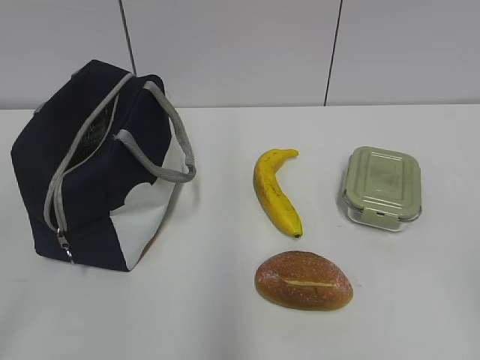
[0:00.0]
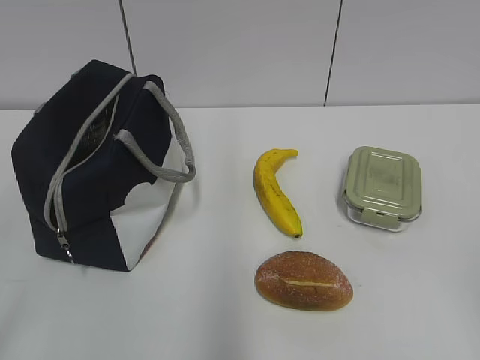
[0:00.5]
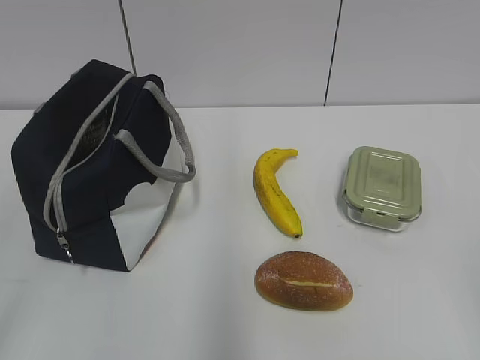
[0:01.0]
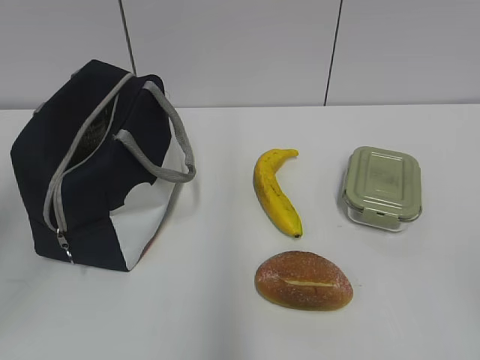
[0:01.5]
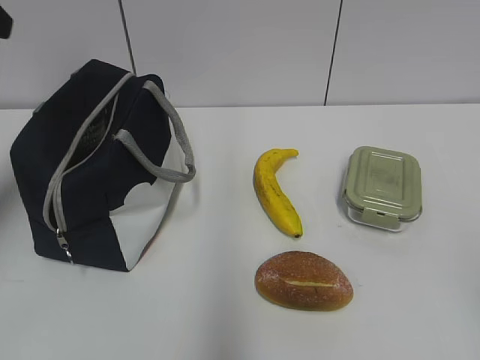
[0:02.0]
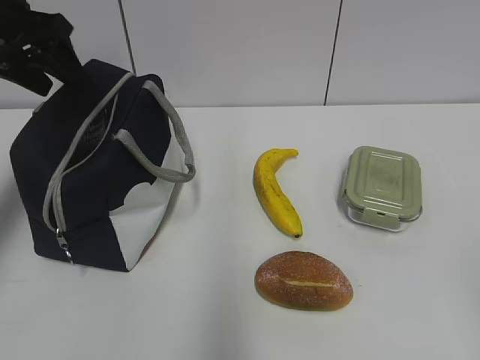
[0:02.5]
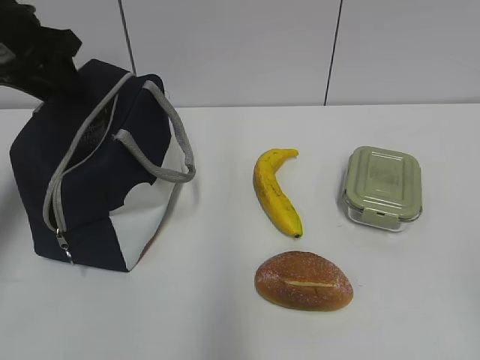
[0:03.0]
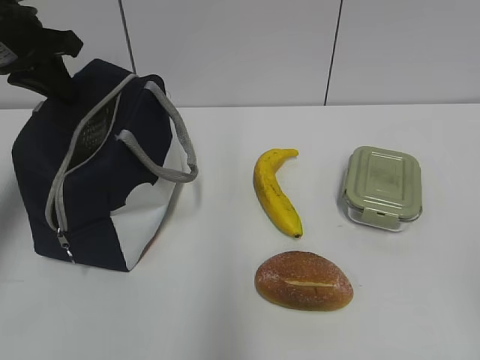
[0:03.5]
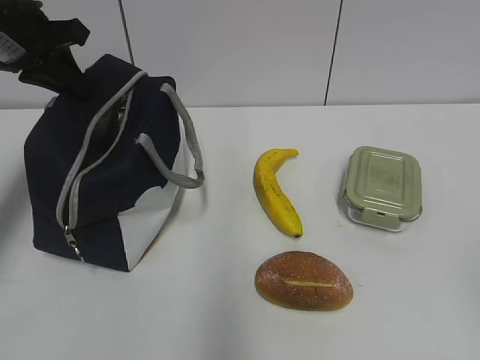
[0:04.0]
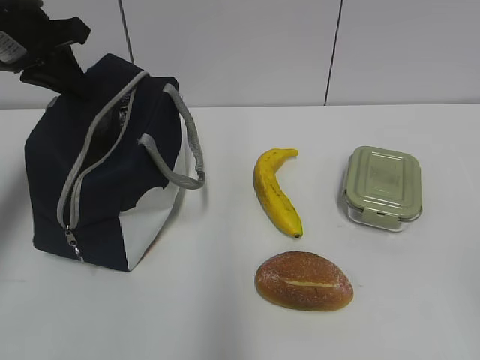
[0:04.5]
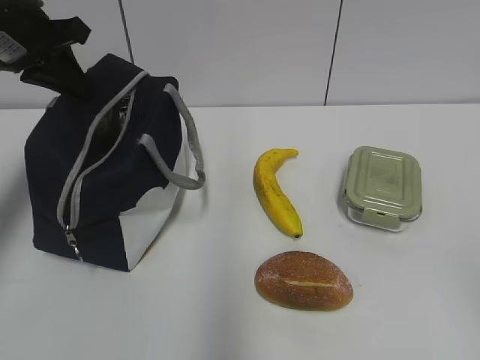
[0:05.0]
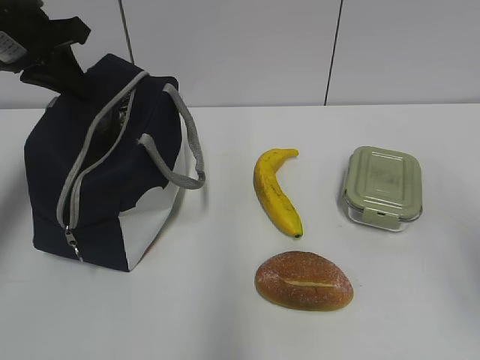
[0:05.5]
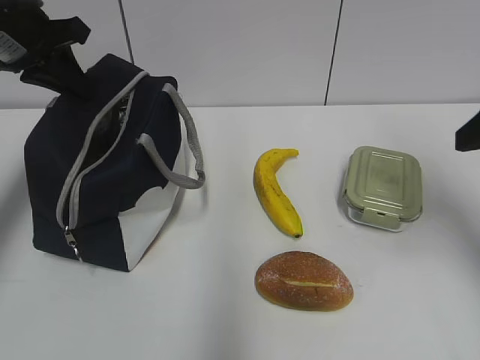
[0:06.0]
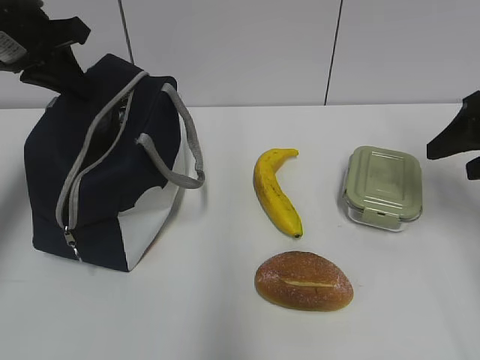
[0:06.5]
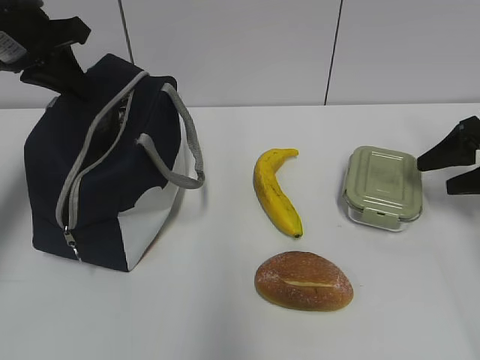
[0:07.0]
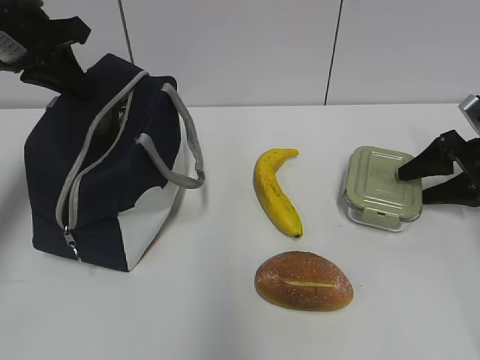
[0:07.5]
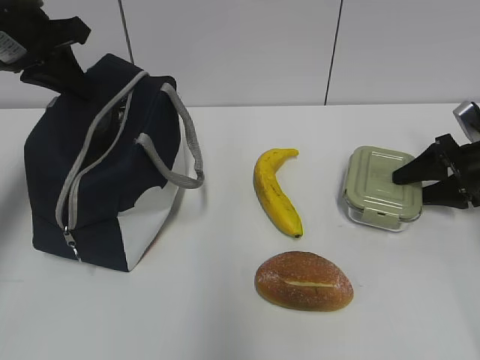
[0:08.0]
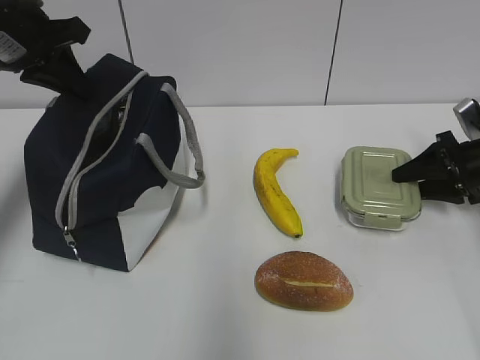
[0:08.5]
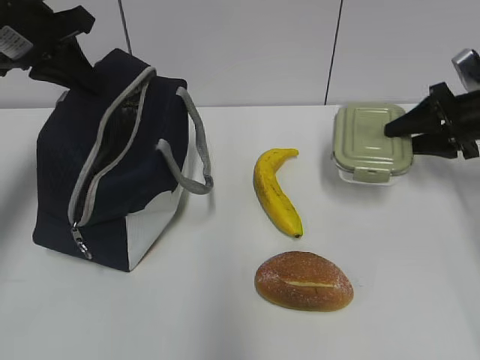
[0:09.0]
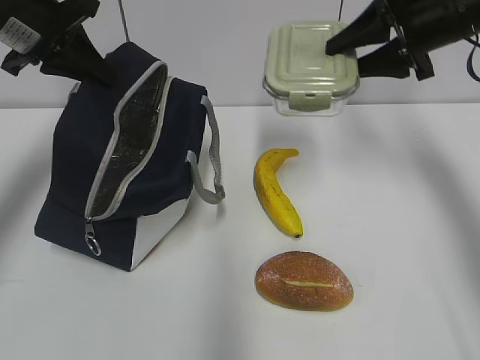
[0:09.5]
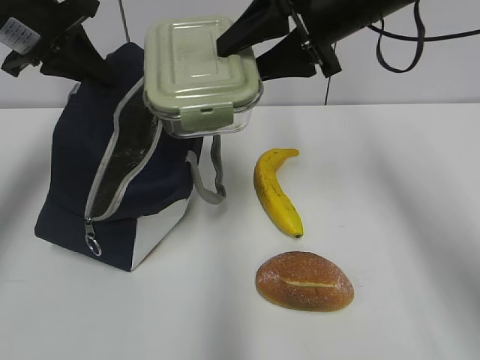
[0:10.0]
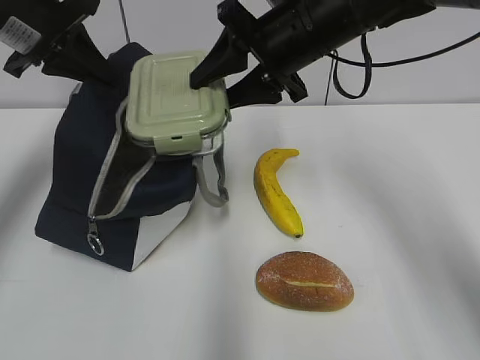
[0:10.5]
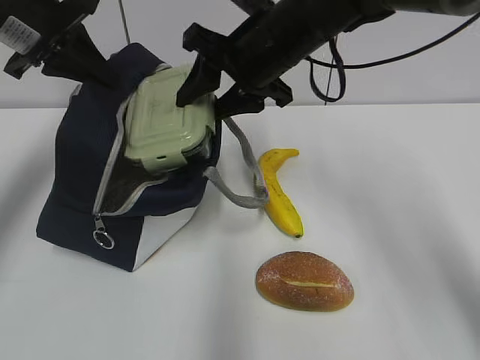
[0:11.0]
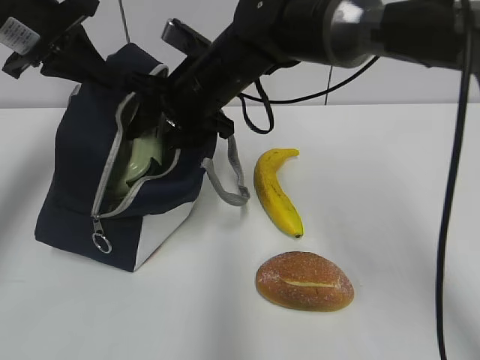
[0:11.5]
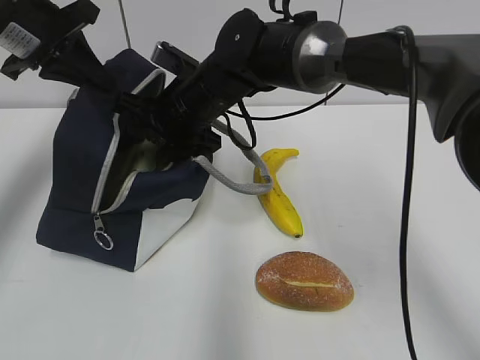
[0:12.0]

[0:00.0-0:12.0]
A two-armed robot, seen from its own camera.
Step, 0:00.0 to 0:08.0: Grab the lunch box with your right hand.
0:02.0 to 0:04.0: The left gripper travels forward and downward by about 15 cm, and closes up.
0:04.0 to 0:06.0: The right gripper is displaced forward by about 25 cm.
0:06.0 to 0:08.0: The right gripper shifts roughly 25 cm downward, forward and to the right.
0:08.0 to 0:10.0: The right gripper travels to the left and upward by roughly 30 cm.
0:10.0 to 0:12.0: The right gripper heads to the left and downward, covering about 20 cm.

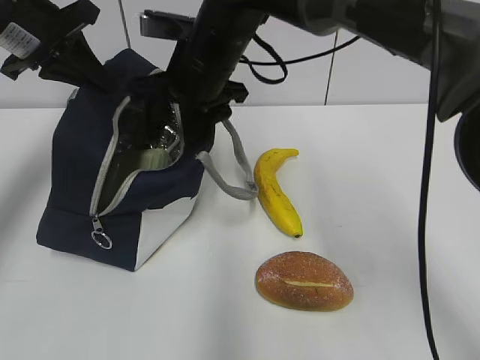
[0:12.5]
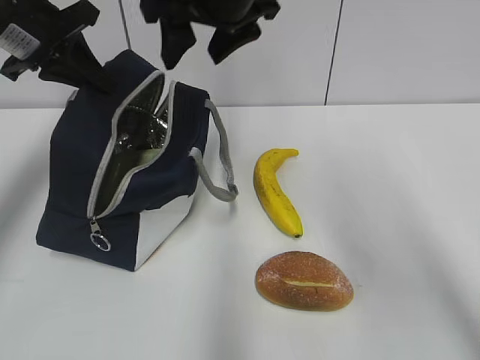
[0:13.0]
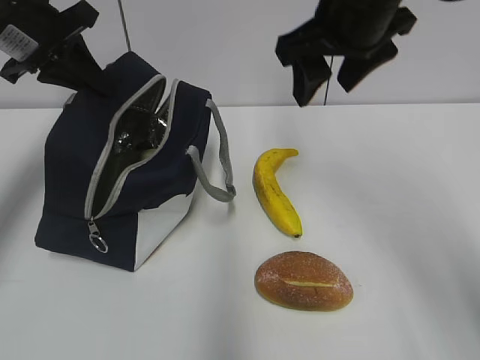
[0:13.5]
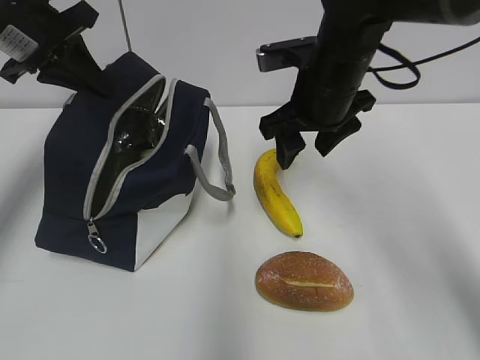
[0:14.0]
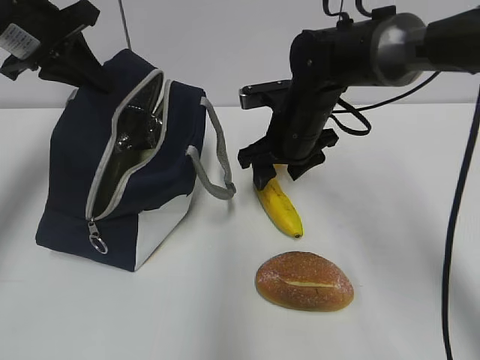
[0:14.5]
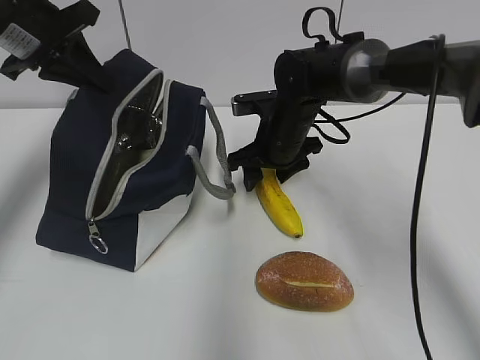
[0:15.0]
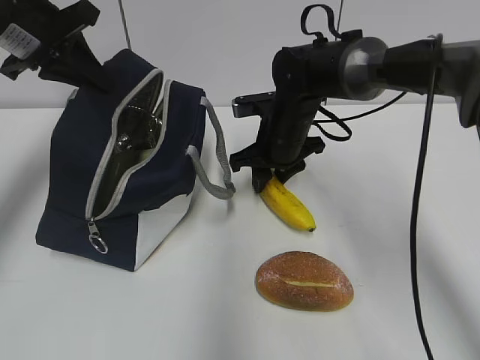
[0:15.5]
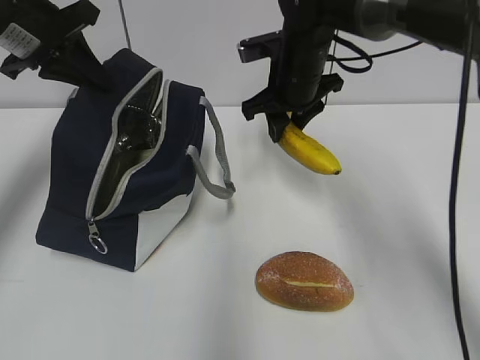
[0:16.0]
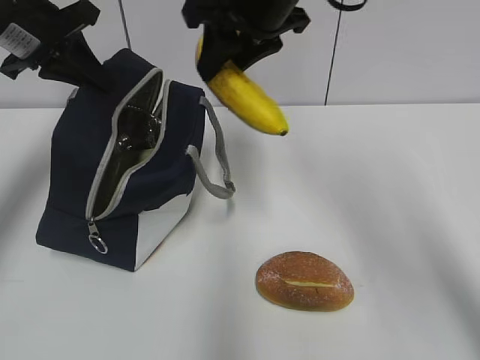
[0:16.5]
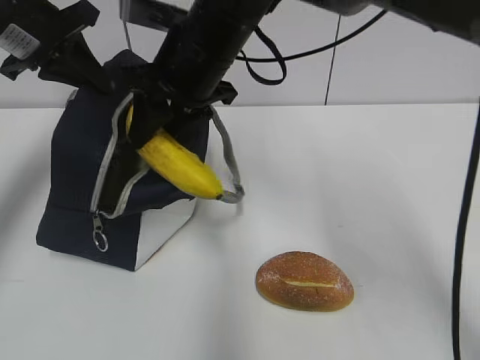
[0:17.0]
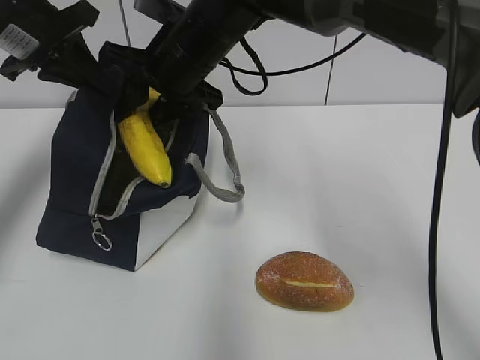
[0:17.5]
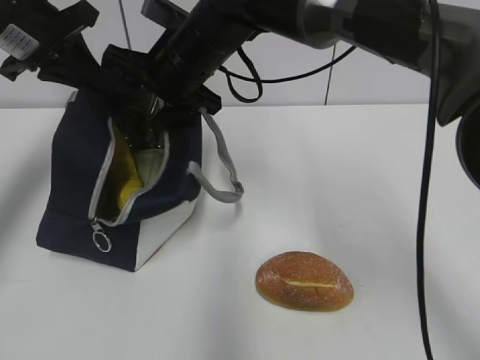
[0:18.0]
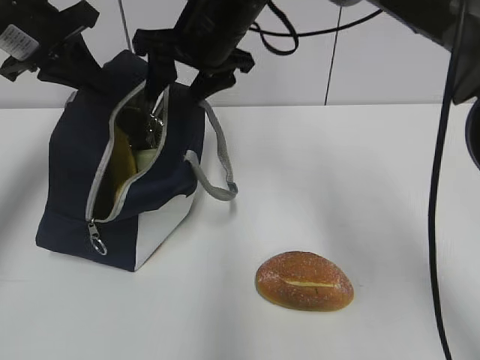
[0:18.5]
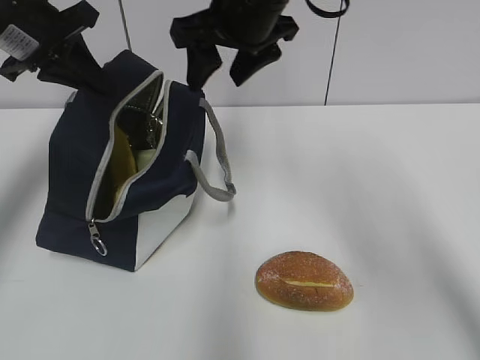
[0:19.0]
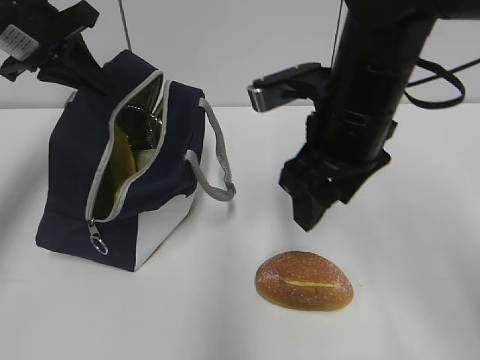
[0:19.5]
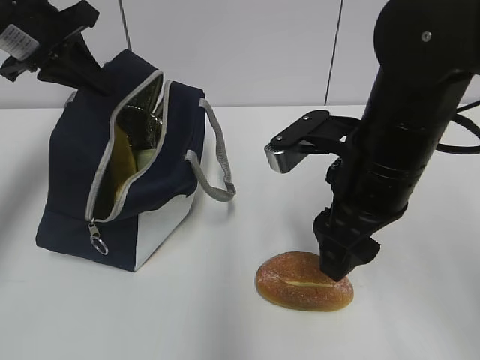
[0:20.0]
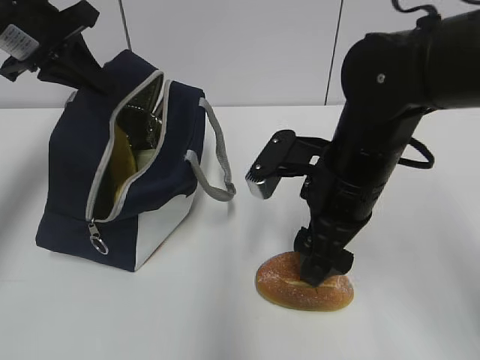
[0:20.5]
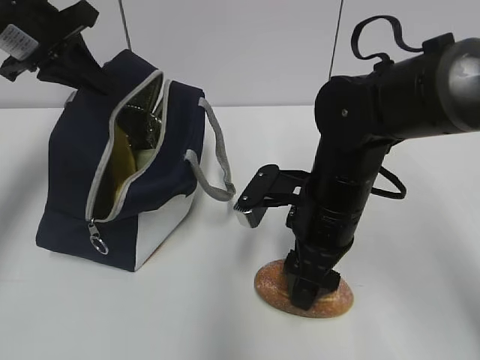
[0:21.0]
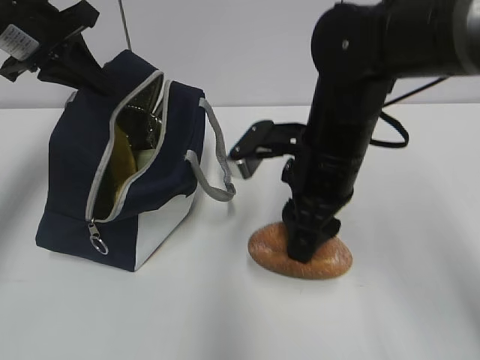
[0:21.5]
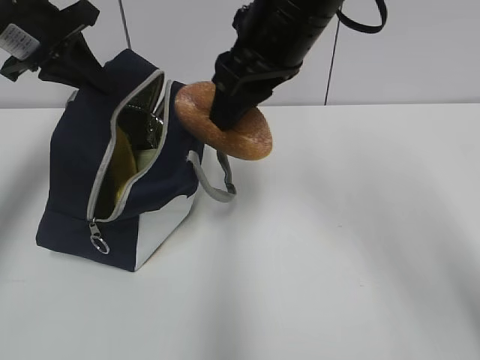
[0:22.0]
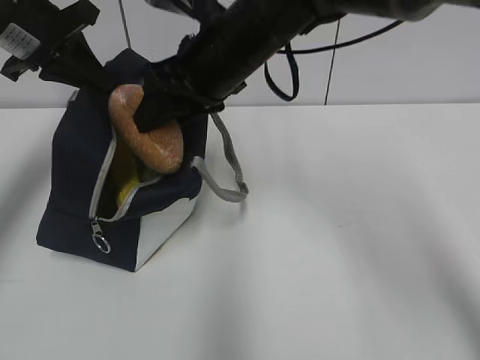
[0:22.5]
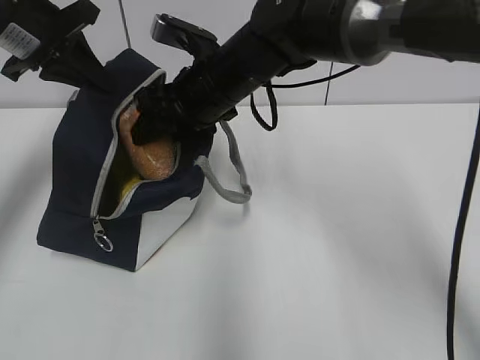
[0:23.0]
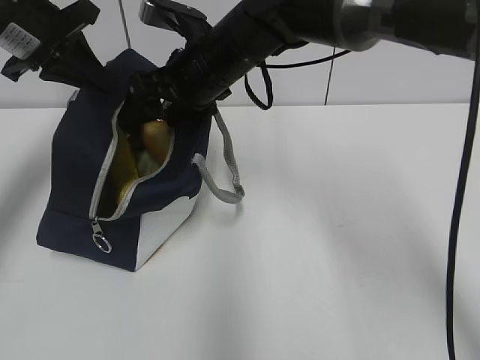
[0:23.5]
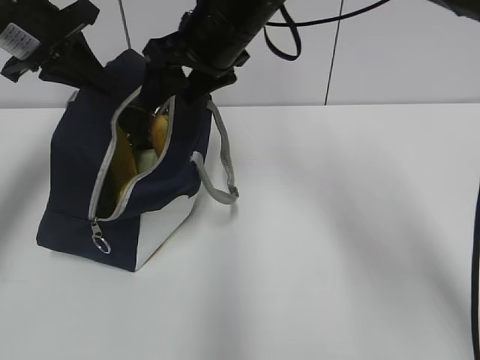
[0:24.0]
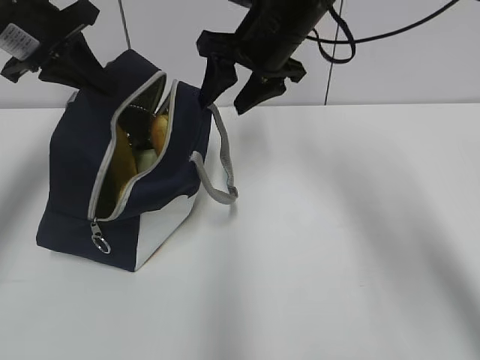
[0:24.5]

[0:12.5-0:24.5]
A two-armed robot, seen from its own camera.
Step, 0:12.5 to 0:15.0: Grab the banana with your right hand.
Step, 0:15.5 to 0:18.0: Place it into the bag with your right hand.
Step, 0:18.5 to 0:21.0: Grab the bread with your right hand.
0:12.5 to 0:14.5: The right gripper shifts approximately 15 cm to the right and downward.
0:14.5 to 0:16.5: The right gripper shifts approximately 15 cm upward, and closes its fingers.
0:16.5 to 0:18.5: The right gripper heads to the left and downward, covering some 5 cm, and opens up.
0:18.5 to 0:20.5: The right gripper is displaced backward, to the right and downward by some 20 cm.
0:20.5 to 0:22.5: The right gripper goes up and down, some 15 cm each way, reversing 2 times, and closes its fingers.
0:22.5 to 0:24.5: The right gripper goes roughly 10 cm to the right and forward.

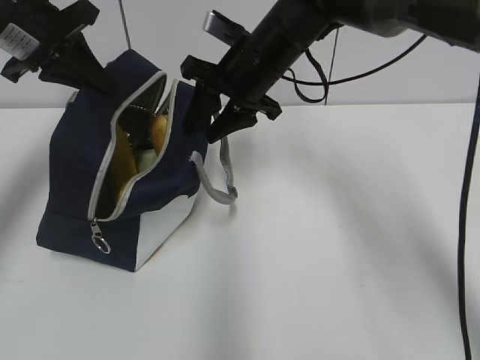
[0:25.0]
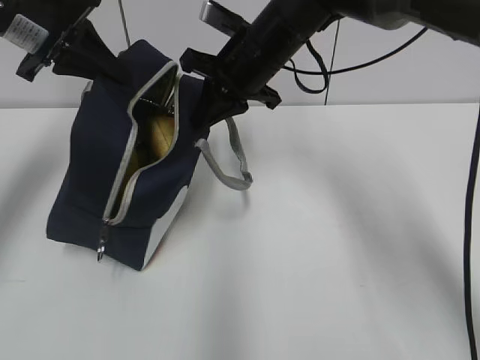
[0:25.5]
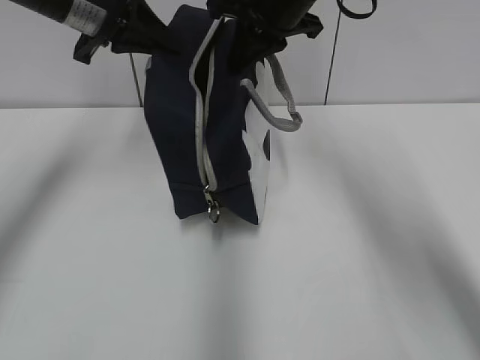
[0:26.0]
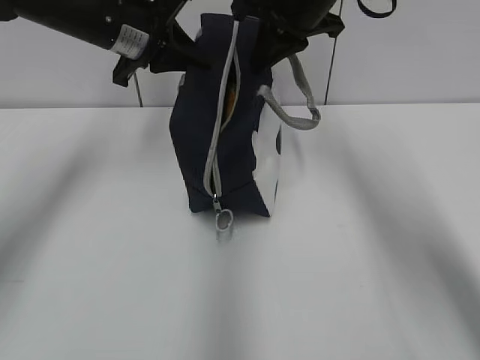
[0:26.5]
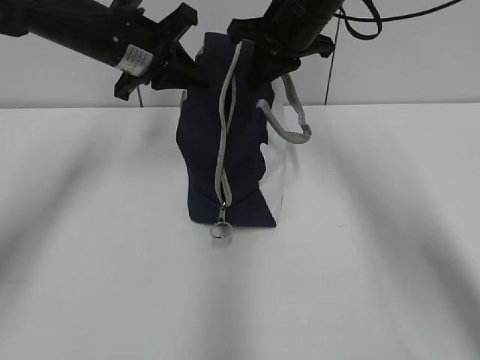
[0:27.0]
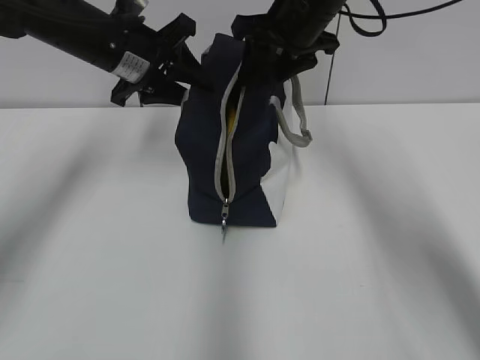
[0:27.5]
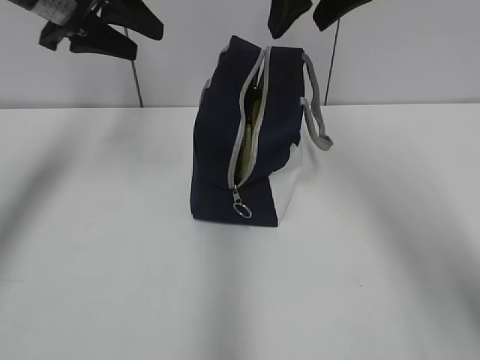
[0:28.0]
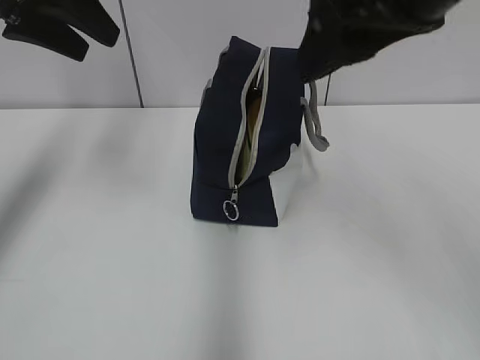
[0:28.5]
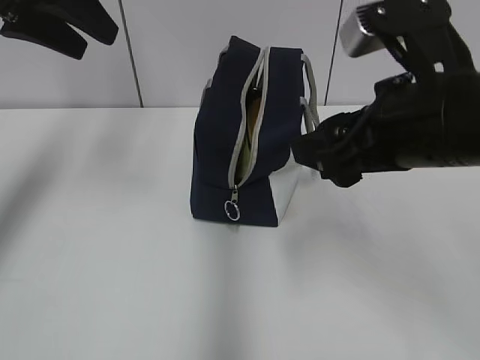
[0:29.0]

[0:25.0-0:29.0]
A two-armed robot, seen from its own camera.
Step, 0:25.5 to 0:27.5: Move the lunch bag to the right.
0:25.0 to 0:27.0: The right gripper is displaced upward by about 5 cm, and closes, while the left gripper heads to the right, covering about 10 cm.
0:27.0 to 0:29.0: The right gripper moves backward, approximately 20 cm, and opens up. Meanwhile the left gripper goes some 15 cm upward, backward and to the left, and opens its fingers.
